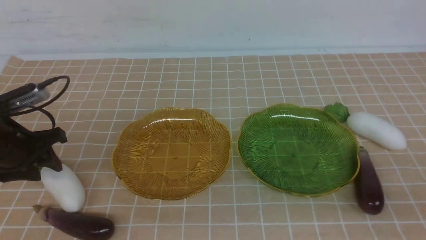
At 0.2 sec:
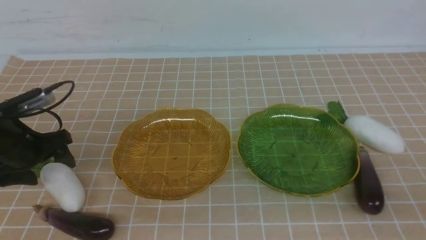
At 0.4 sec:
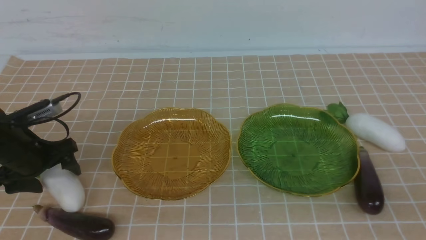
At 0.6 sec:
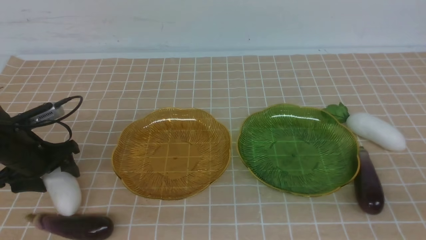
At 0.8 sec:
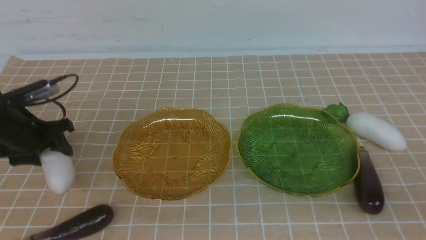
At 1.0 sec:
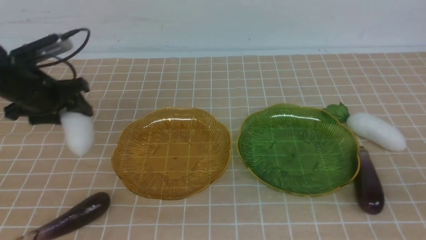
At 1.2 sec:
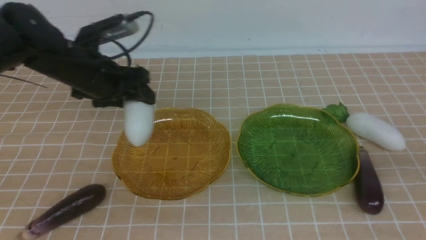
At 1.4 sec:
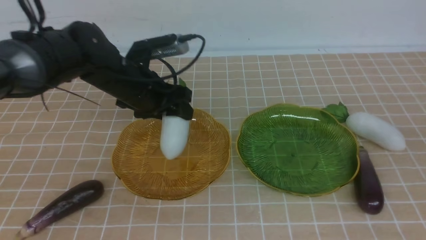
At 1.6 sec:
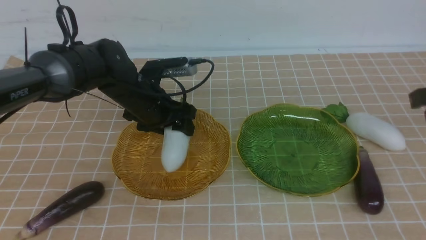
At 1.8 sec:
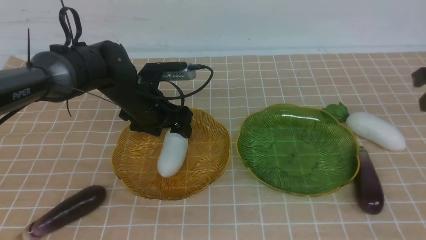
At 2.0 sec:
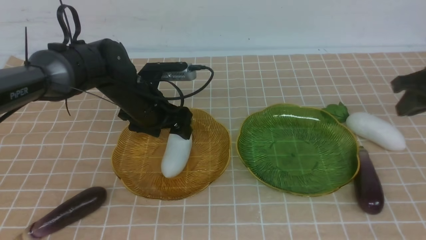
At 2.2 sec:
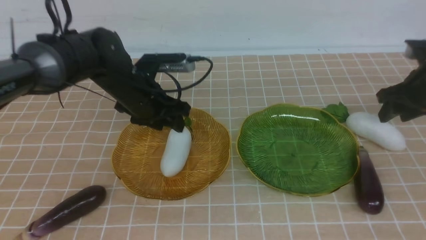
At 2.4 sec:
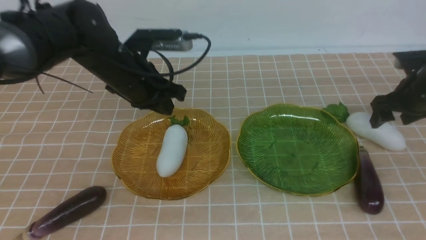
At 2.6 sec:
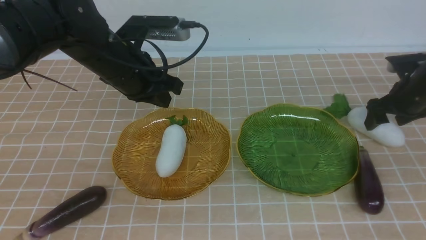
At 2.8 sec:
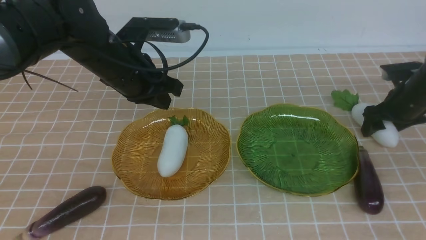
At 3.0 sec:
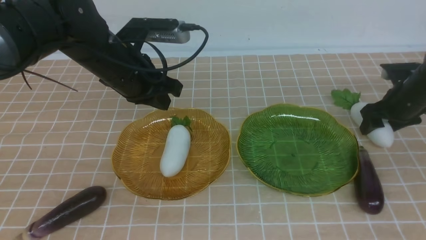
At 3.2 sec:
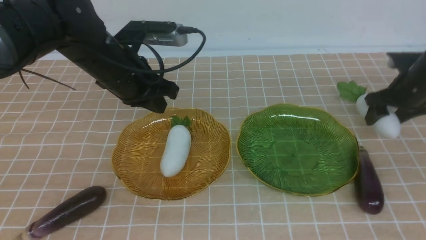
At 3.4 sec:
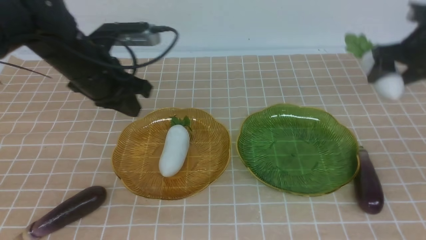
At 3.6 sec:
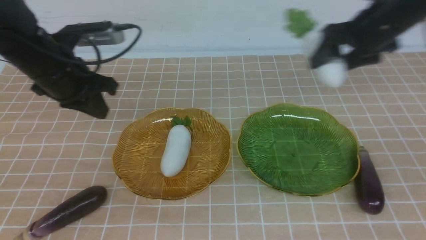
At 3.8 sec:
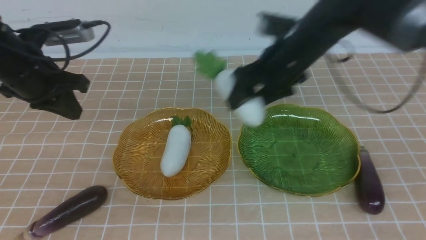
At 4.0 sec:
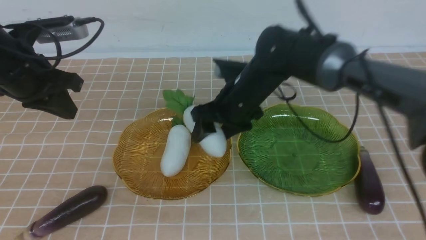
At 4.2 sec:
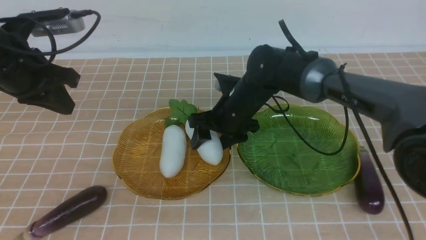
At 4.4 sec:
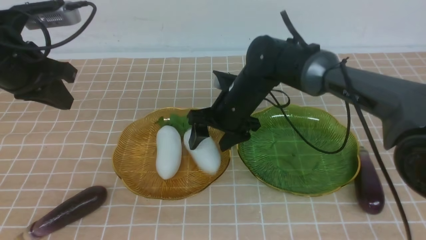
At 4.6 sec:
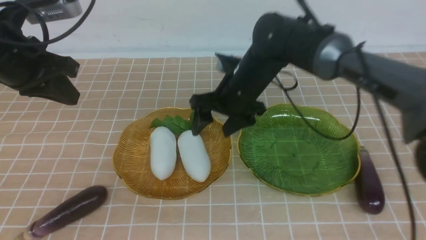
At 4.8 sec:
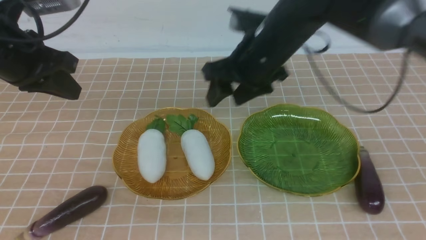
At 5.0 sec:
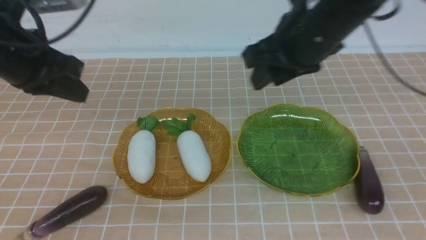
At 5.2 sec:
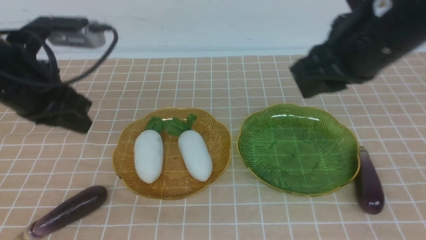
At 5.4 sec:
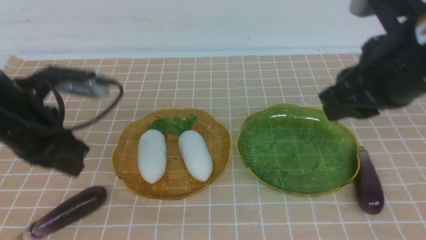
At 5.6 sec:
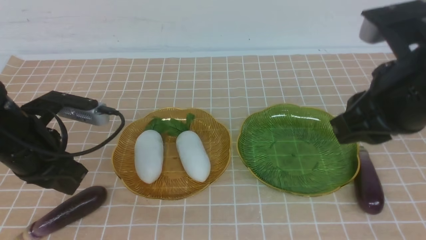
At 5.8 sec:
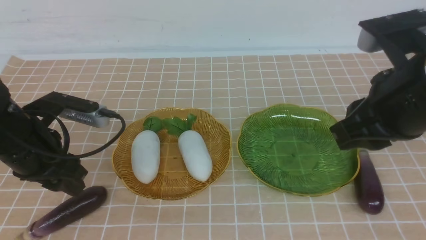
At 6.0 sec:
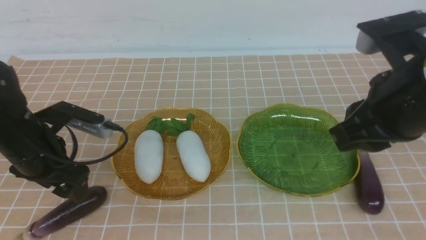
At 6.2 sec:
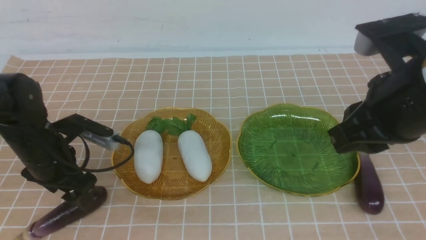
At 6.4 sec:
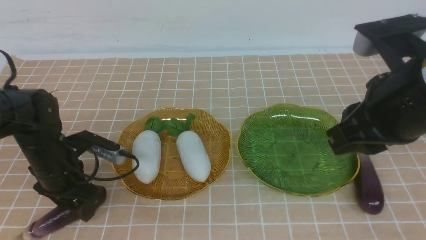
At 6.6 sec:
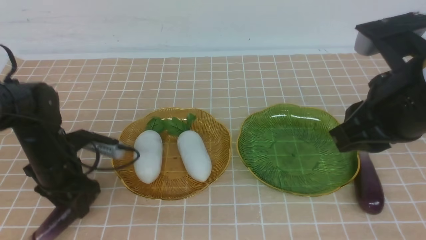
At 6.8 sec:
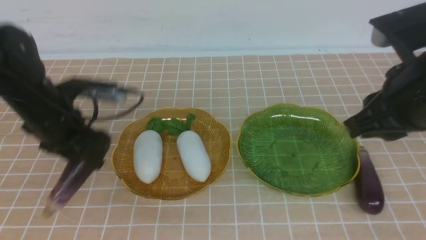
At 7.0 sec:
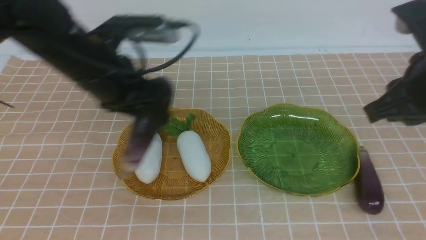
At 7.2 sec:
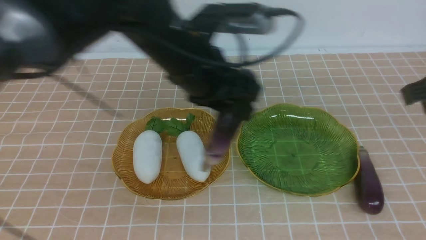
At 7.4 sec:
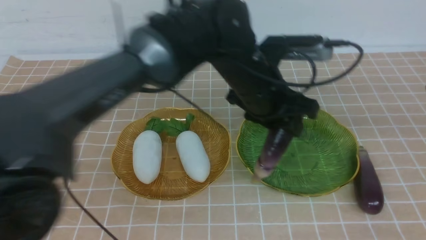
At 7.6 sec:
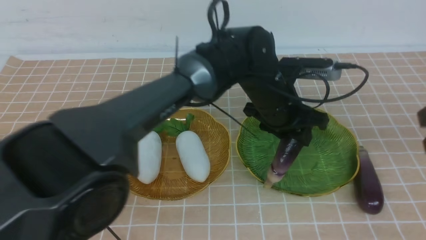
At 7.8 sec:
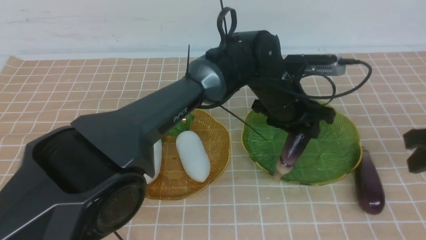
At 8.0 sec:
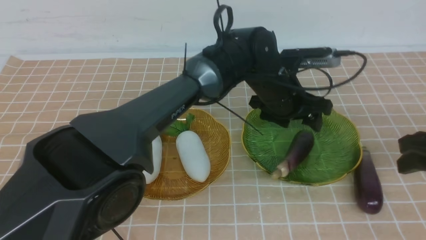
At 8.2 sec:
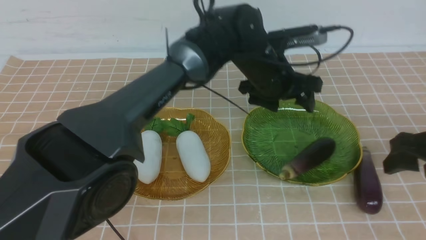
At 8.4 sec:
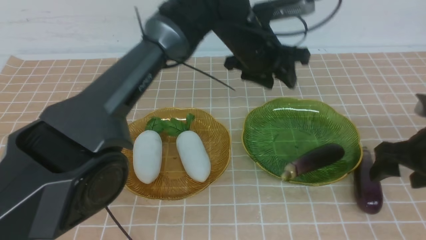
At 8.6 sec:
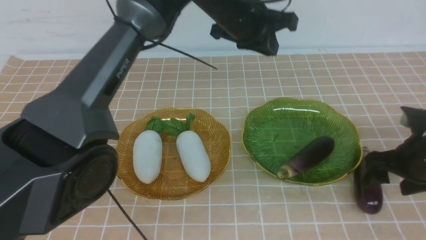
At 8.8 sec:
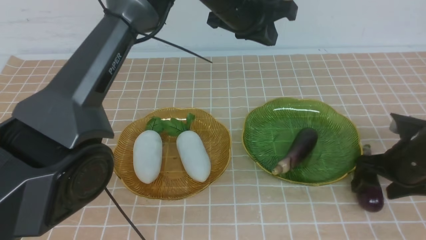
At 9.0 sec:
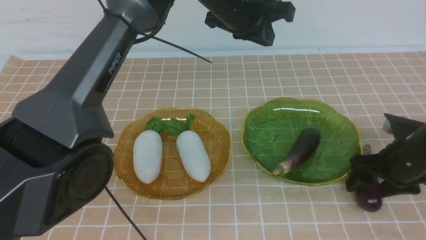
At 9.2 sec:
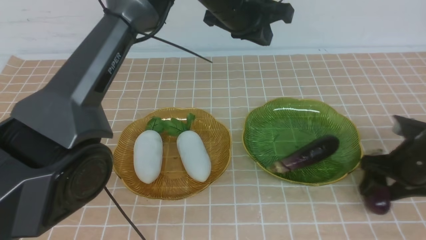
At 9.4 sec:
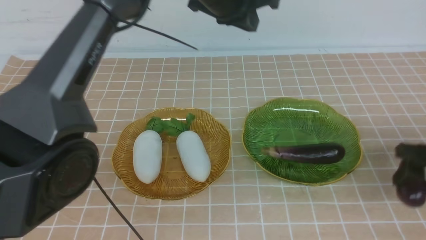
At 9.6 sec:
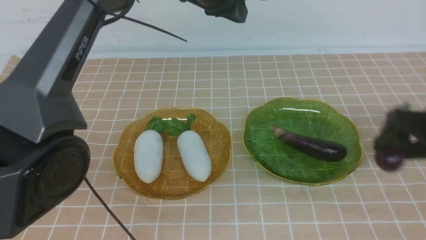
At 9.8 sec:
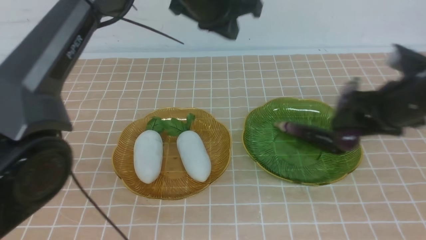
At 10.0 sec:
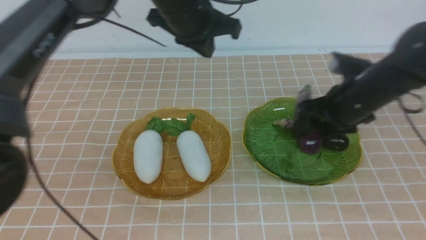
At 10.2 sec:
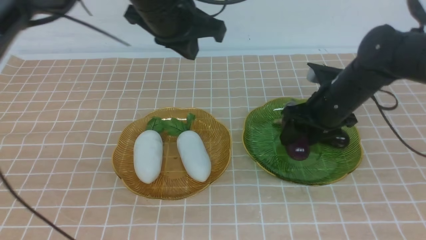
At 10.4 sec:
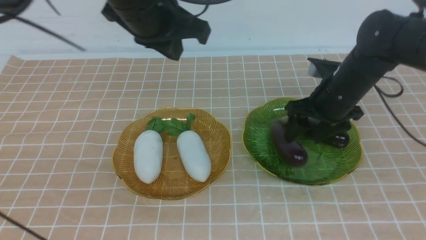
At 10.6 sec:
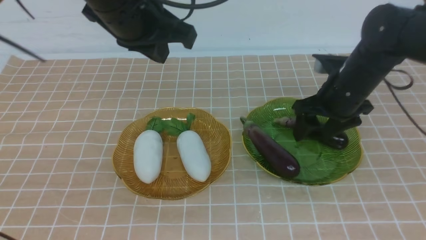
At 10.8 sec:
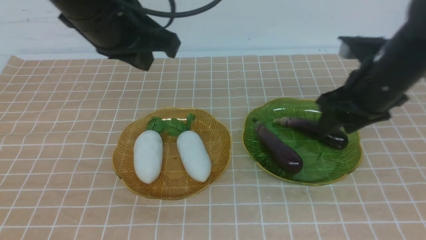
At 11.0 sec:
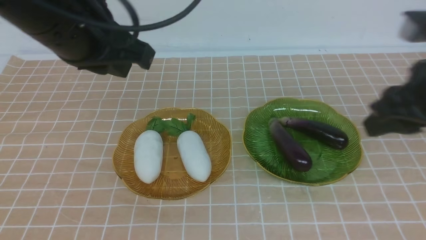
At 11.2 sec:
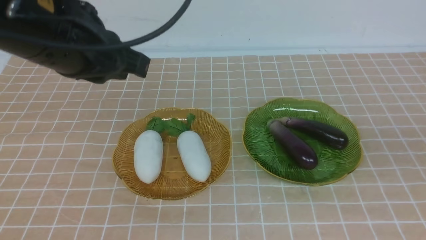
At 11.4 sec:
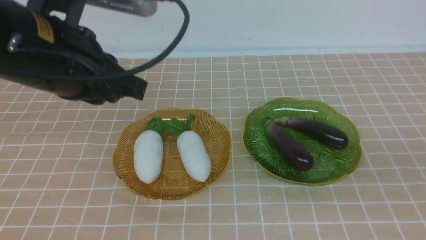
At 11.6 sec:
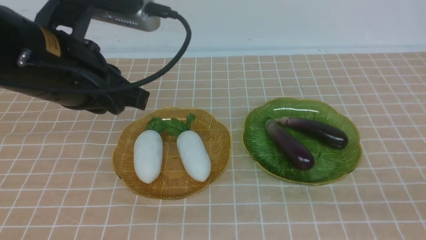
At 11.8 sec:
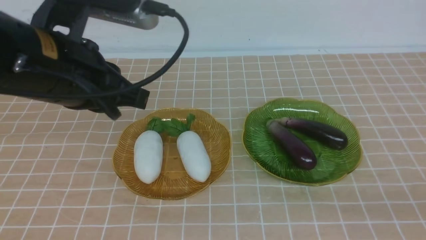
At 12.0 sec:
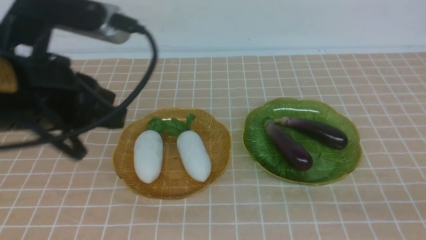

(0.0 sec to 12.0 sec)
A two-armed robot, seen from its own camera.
Step, 0.0 sec - 2.2 sec: use the left arm to grab a radish and put it into the left plate.
Step, 2.4 sec - 4.4 sec: use the right arm to grab a carrot and put it into the left plate.
Step, 4.6 sec - 7.8 sec: use the left arm to grab an eggplant and put it into the right plate.
Step, 8.2 sec - 10.2 sec: use the right arm to grab an eggplant and put it into the right plate.
0.0 sec - 1.6 sec: The right gripper moves forward, about 15 cm. Meanwhile the left gripper is displaced to the right and forward by some 20 cm.
1.6 sec - 3.0 sec: The right gripper heads forward and downward, covering about 25 cm, and opens its fingers. Meanwhile the left gripper is displaced upward by about 10 cm, and closes up.
3.0 sec - 4.4 sec: The right gripper is displaced to the left by approximately 30 cm, while the left gripper is displaced to the left by roughly 10 cm.
4.4 sec - 6.0 sec: The right gripper moves backward, to the right and upward, some 25 cm, and closes. The left gripper travels downward by about 15 cm, and opens.
6.0 sec - 7.6 sec: The left gripper goes roughly 35 cm to the right; the right gripper goes about 15 cm to the right and downward.
7.6 sec - 9.0 sec: The right gripper travels downward and forward by about 10 cm. Meanwhile the left gripper travels upward and to the left by roughly 20 cm, and closes up.
9.0 sec - 10.4 sec: The left gripper goes some 20 cm backward and to the left, while the right gripper heads upward, backward and to the left, covering roughly 20 cm, and closes its fingers.
10.4 sec - 12.0 sec: The right gripper goes some 20 cm backward. Meanwhile the left gripper shifts about 15 cm backward, to the left and downward.

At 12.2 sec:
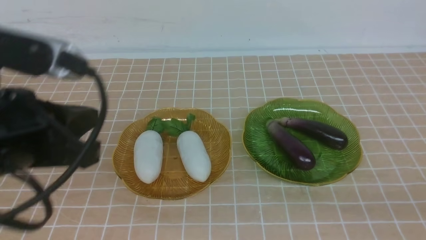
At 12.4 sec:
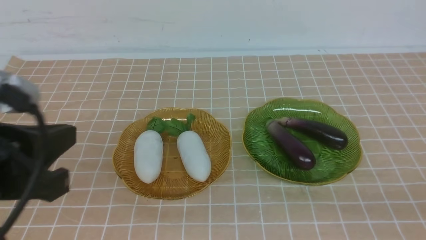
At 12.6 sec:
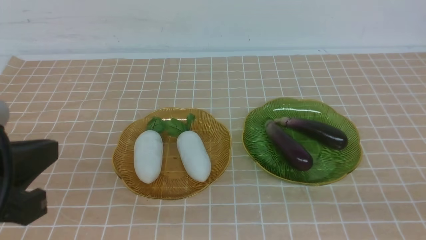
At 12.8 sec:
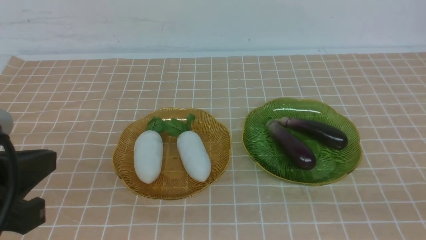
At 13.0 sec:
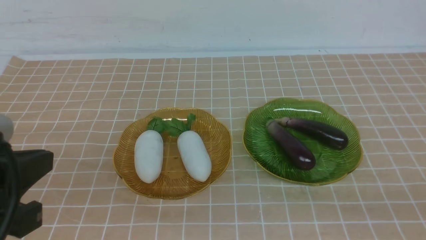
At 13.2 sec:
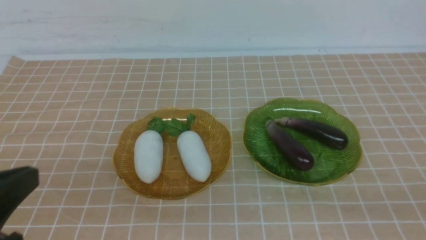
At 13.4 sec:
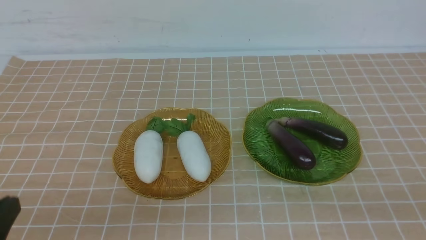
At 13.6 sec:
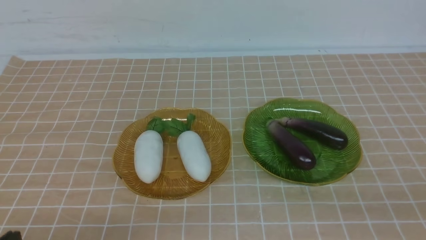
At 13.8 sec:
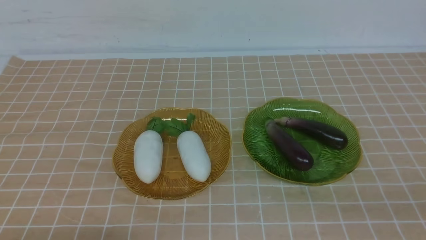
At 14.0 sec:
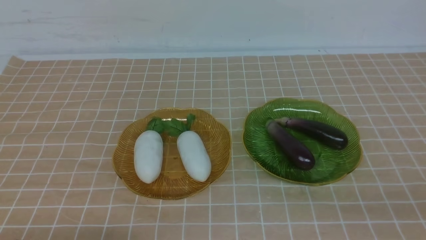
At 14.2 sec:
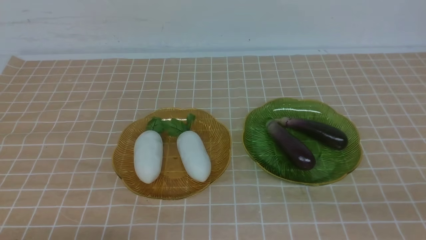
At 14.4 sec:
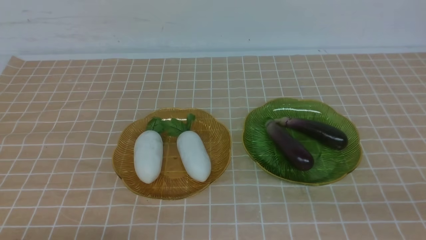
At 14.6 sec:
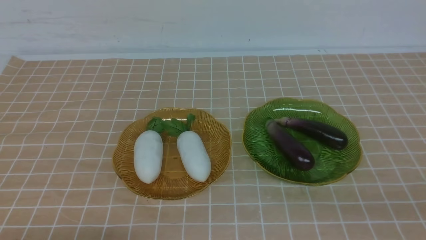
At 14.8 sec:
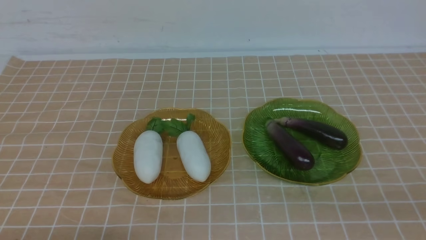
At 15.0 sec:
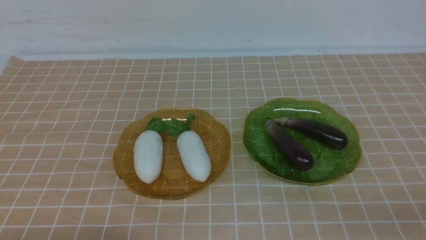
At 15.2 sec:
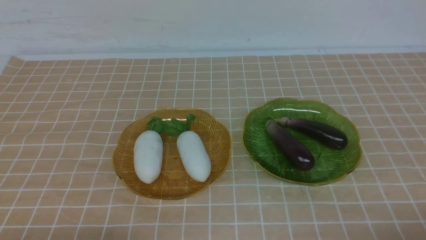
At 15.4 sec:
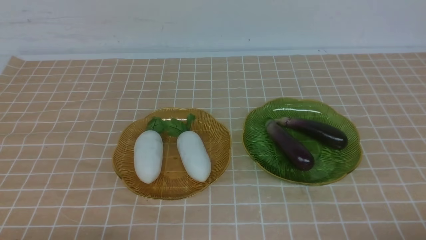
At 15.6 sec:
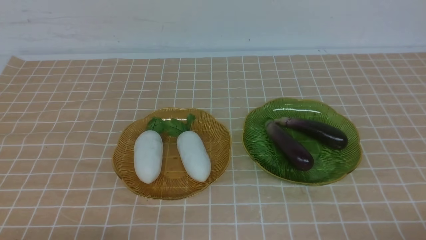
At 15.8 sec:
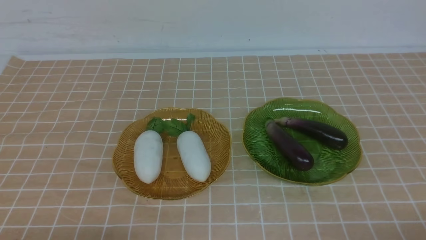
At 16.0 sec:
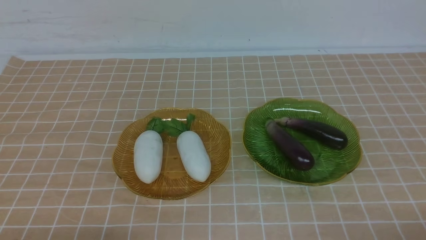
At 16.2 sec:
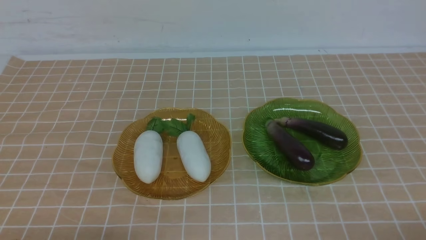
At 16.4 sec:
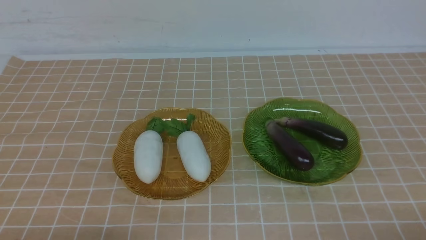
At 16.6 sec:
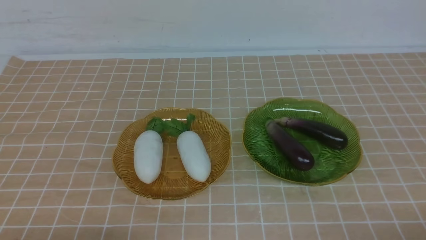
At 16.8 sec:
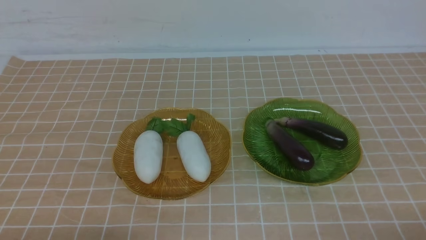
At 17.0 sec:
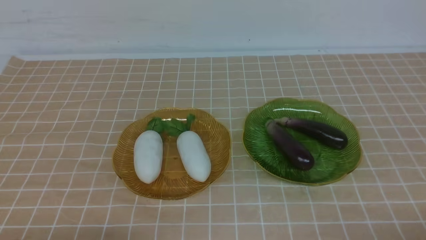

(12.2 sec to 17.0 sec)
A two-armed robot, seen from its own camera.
12.2 sec - 13.8 sec: The left gripper goes approximately 20 cm downward.
15.4 sec - 17.0 sec: Both grippers stay put.
